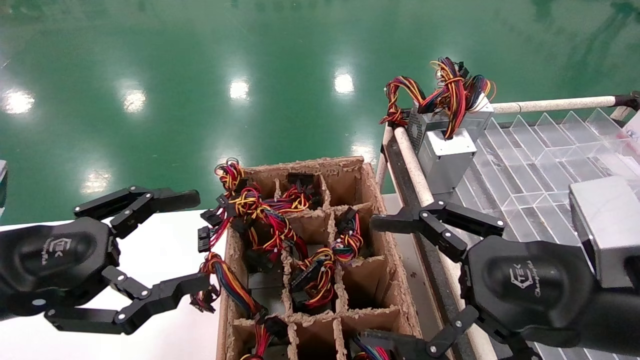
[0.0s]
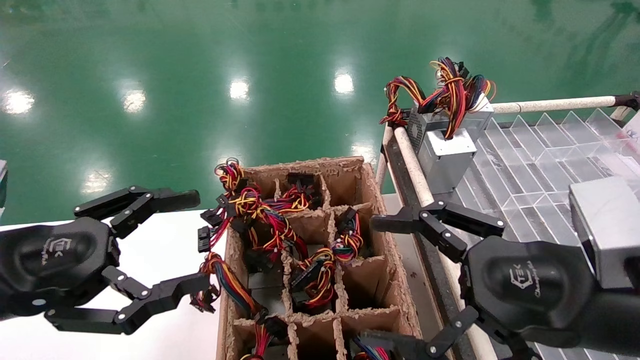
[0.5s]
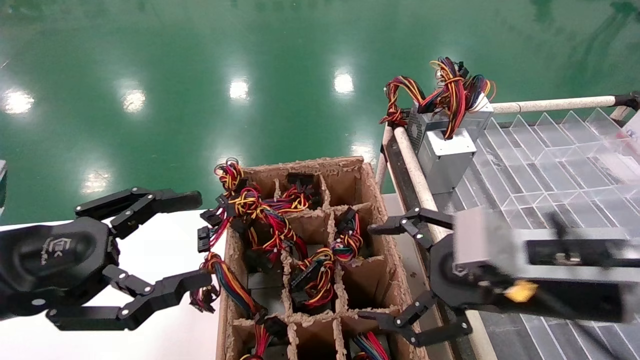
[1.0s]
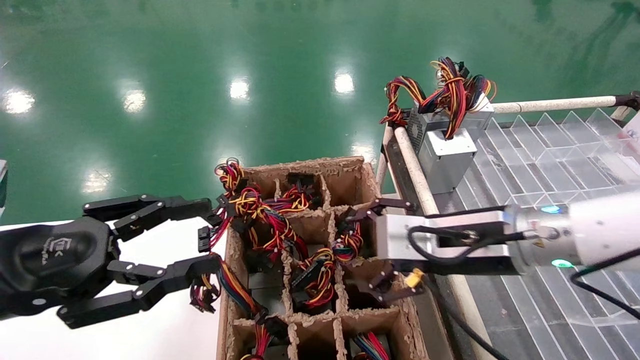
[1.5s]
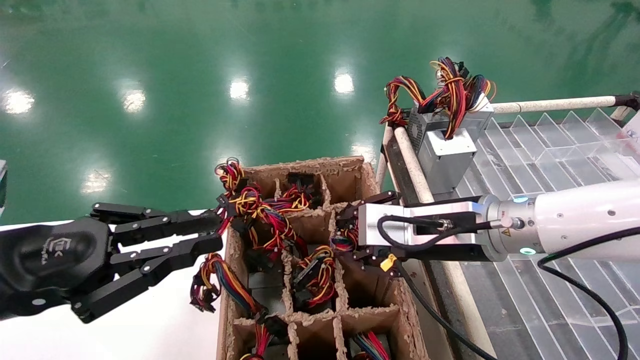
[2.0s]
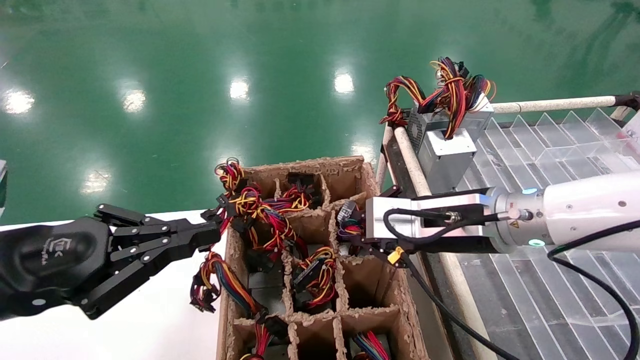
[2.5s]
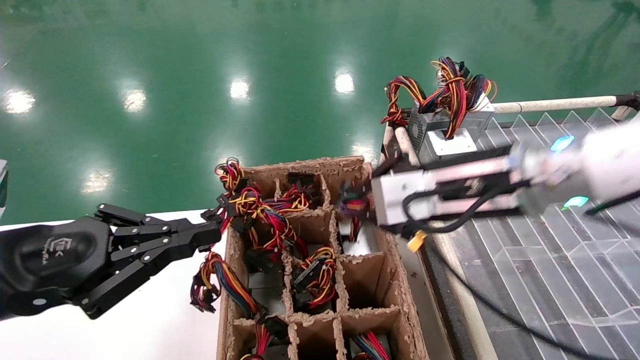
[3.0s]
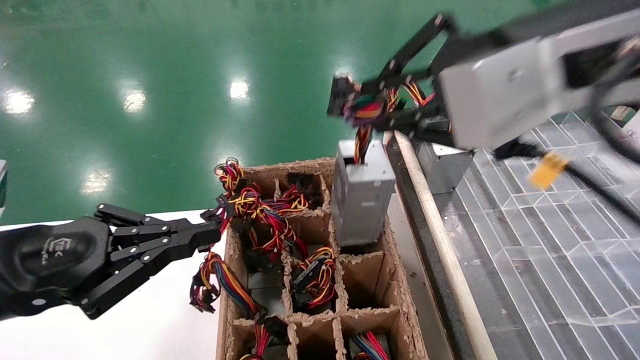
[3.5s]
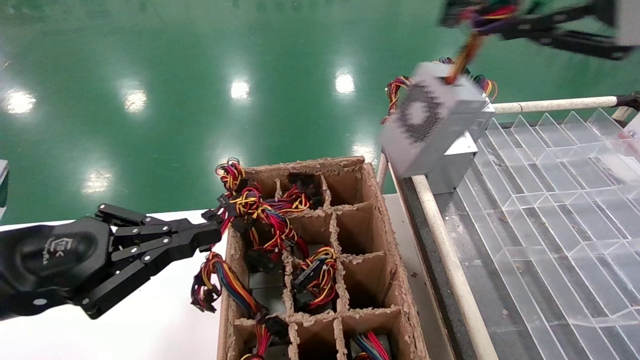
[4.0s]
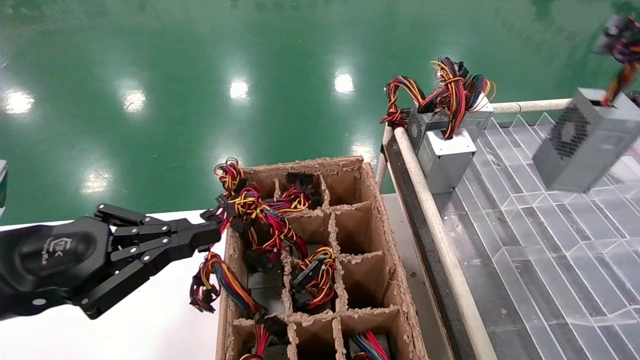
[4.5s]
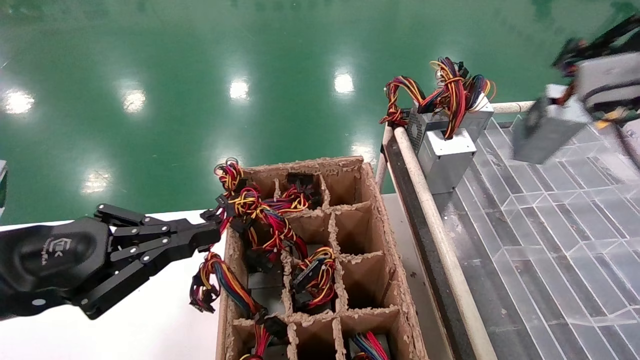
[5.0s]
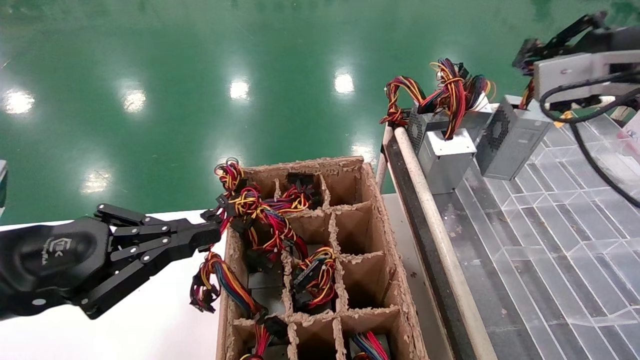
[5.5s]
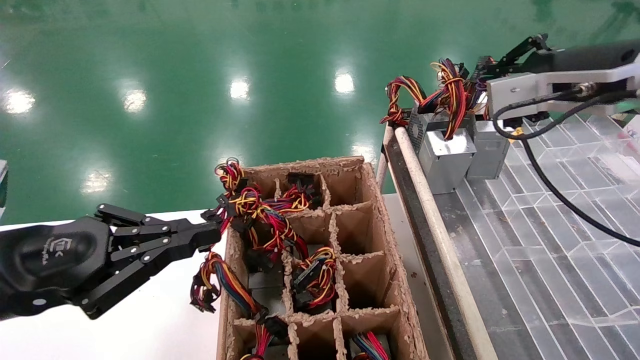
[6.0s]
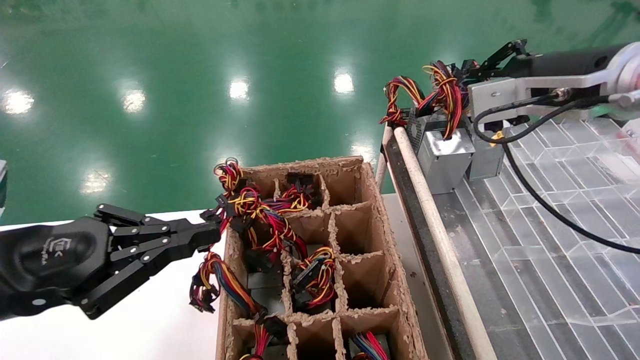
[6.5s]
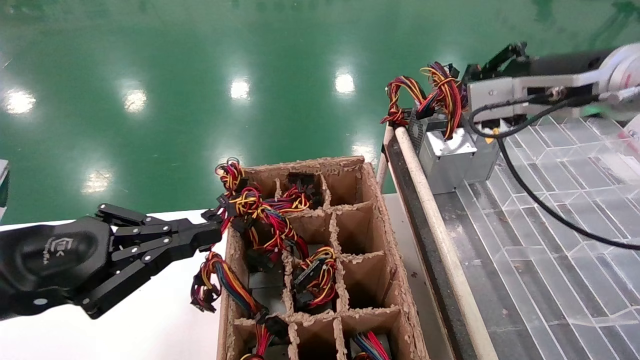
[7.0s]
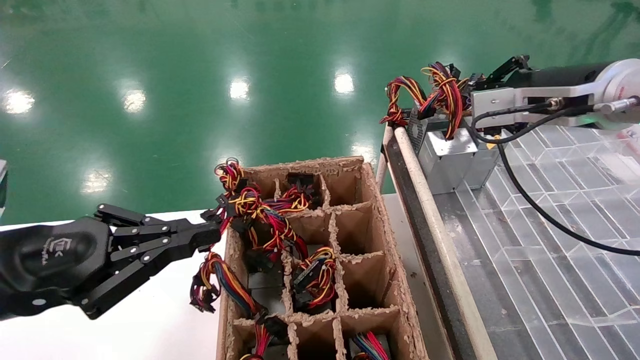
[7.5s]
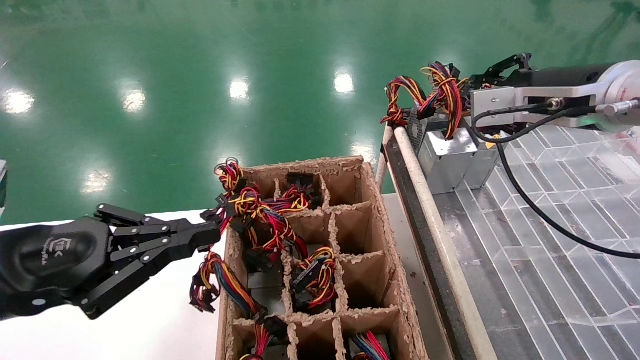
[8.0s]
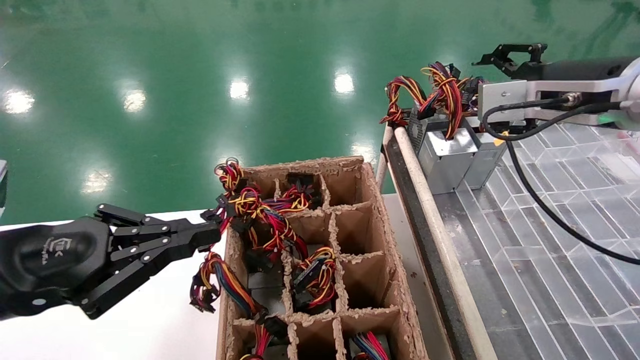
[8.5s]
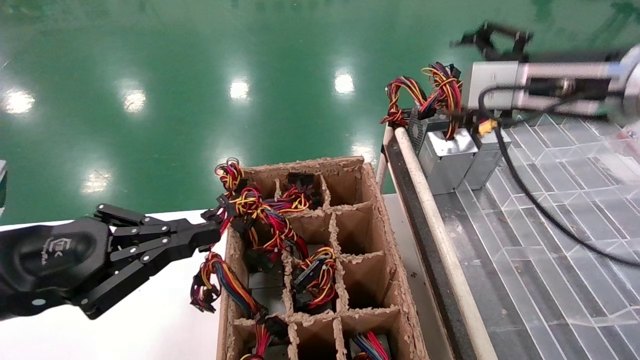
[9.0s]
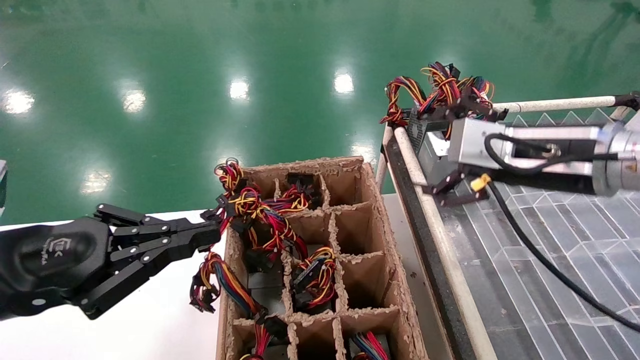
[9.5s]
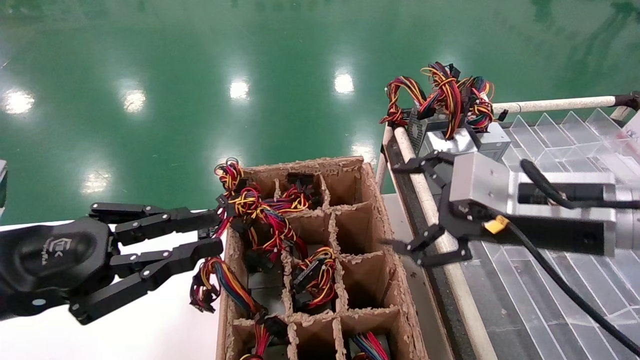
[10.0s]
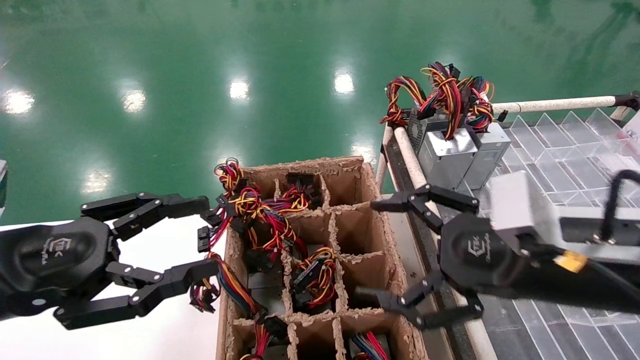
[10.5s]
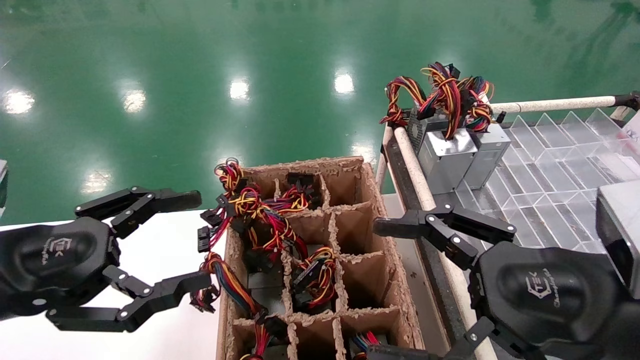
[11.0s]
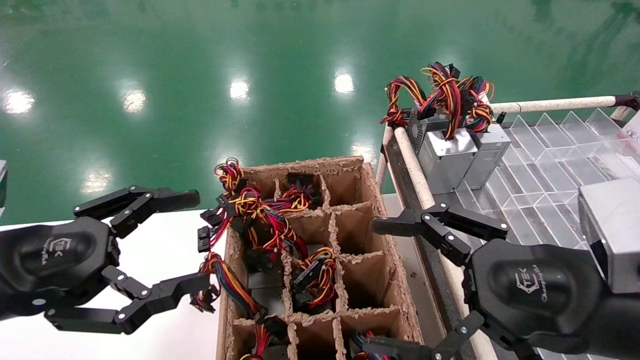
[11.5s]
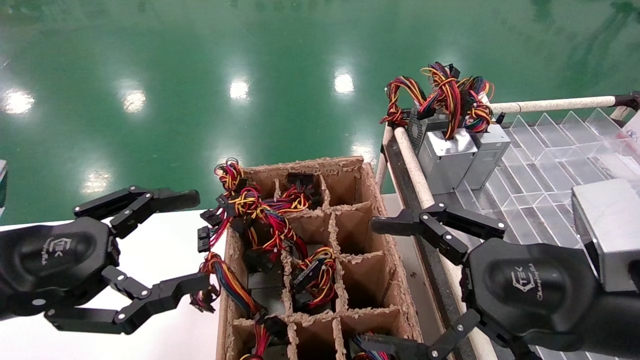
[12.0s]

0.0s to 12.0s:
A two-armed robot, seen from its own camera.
Step, 1.0s to 2.5s: Grab the main unit power supply from the containment box.
Step, 3.0s to 8.0s: Place the main unit power supply in the designated area.
0.0s to 2.0s: The right gripper goes approximately 15 cm forward and to the left, and closes, while the left gripper closes.
2.0s to 4.0s: The right gripper shifts roughly 30 cm upward, backward and to the right, and closes its fingers.
4.0s to 6.0s: The right gripper shifts roughly 20 cm forward and downward.
6.0s to 8.0s: The grippers move only a little.
8.0s to 10.0s: The right gripper travels downward, backward and to the left by roughly 15 cm, and opens its fingers.
10.0s to 12.0s: The right gripper moves backward, roughly 10 cm. Meanwhile the left gripper opens its fingers.

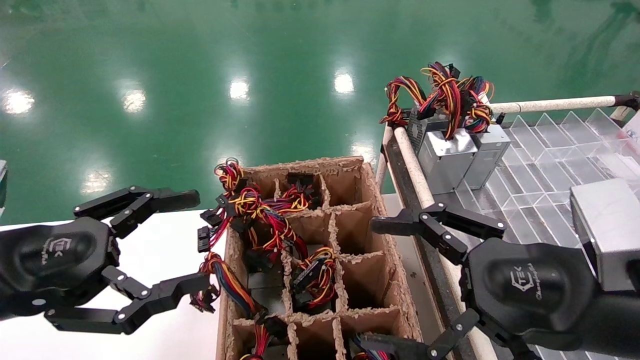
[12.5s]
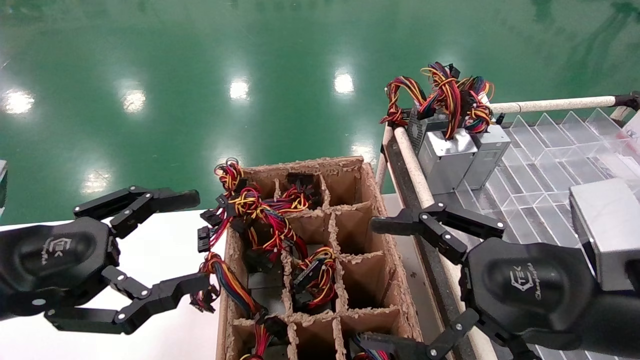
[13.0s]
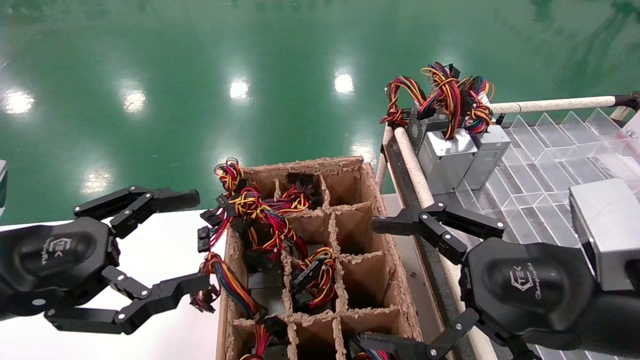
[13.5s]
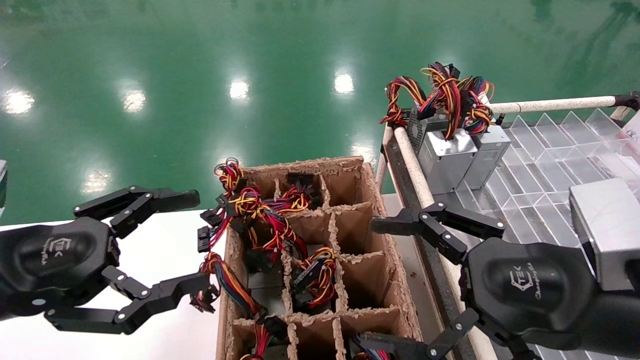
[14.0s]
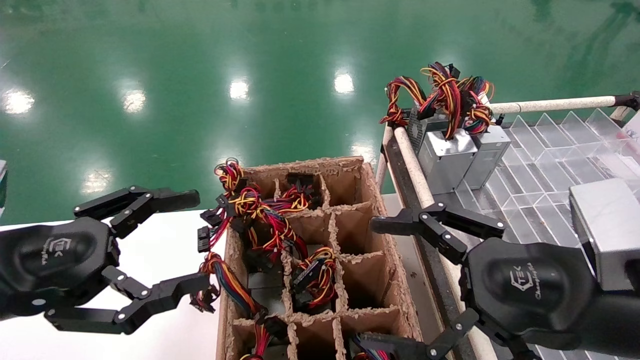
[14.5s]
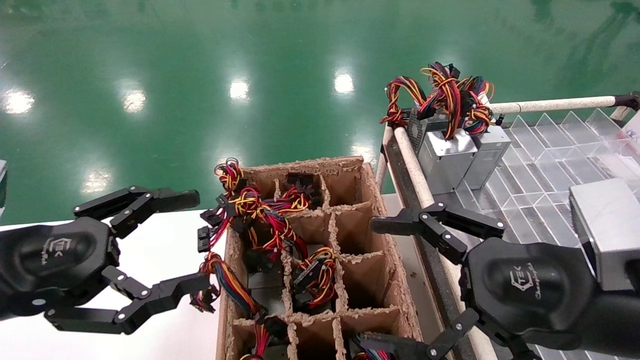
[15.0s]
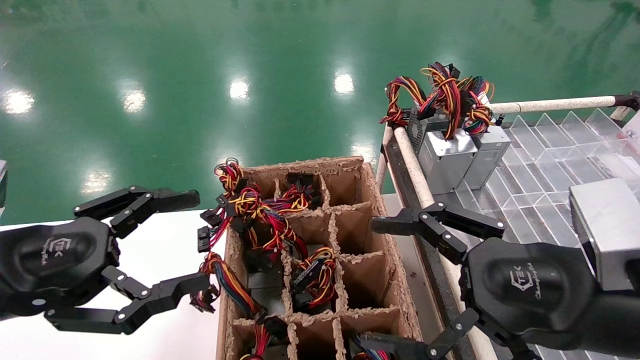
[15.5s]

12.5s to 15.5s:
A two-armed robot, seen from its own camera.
12.5s to 15.5s: Both grippers stay put.

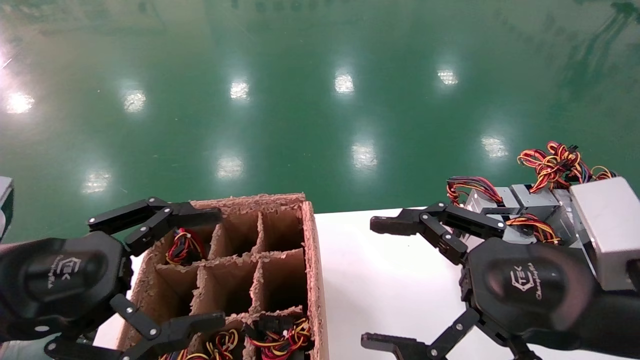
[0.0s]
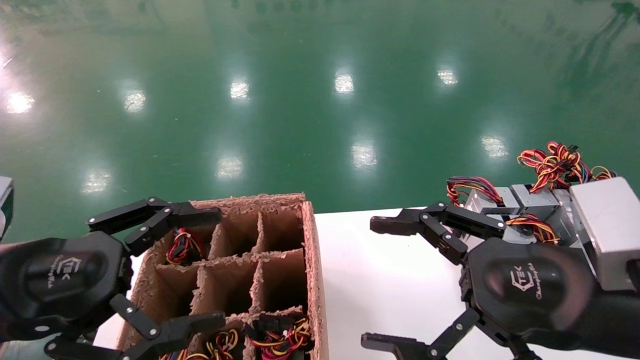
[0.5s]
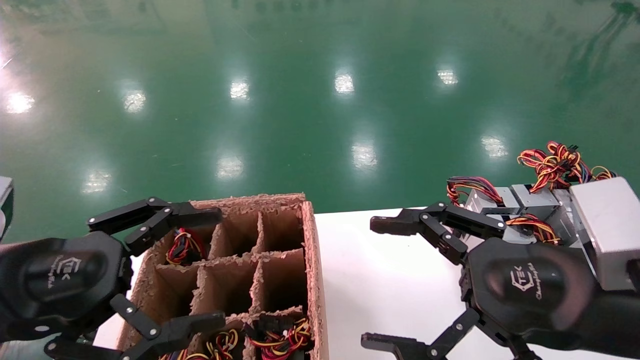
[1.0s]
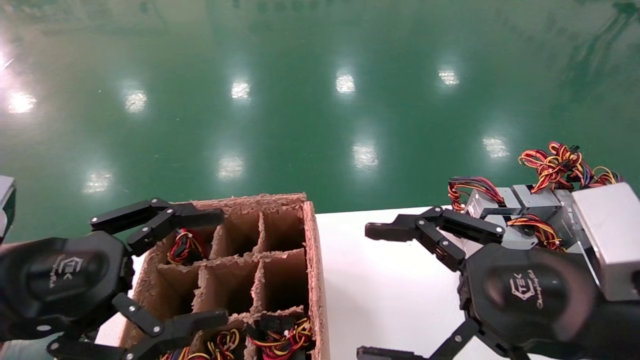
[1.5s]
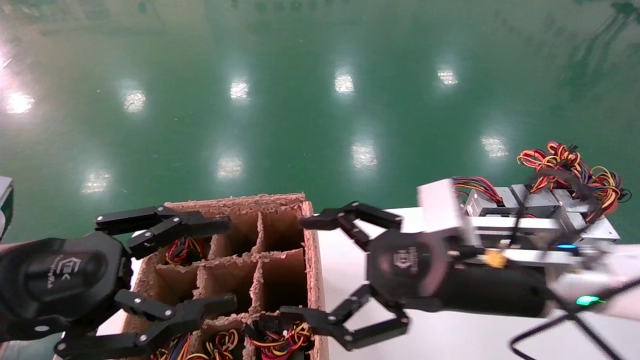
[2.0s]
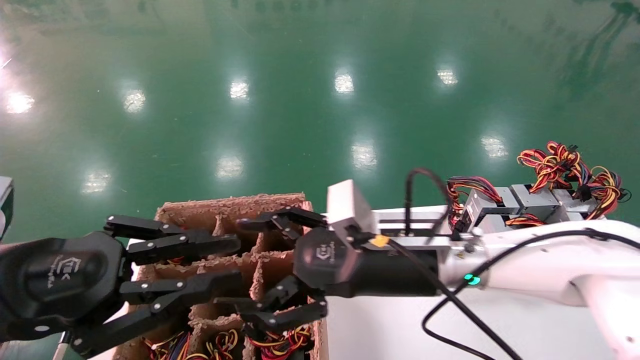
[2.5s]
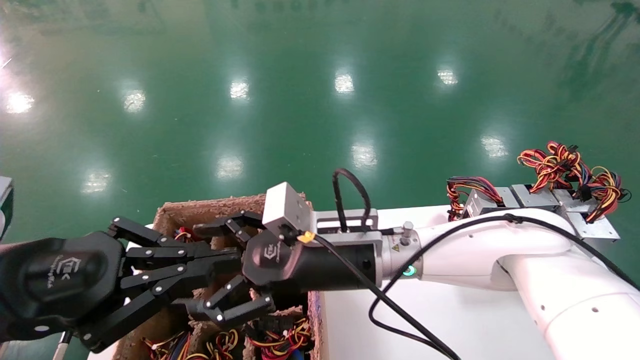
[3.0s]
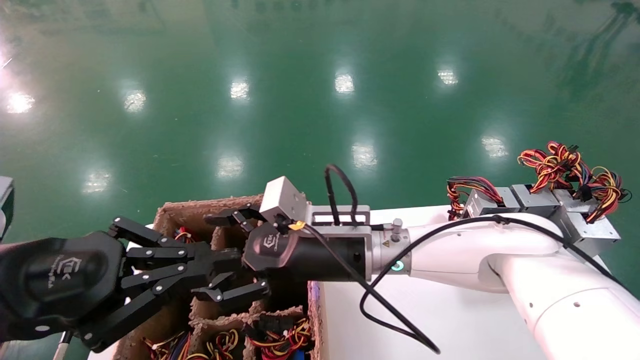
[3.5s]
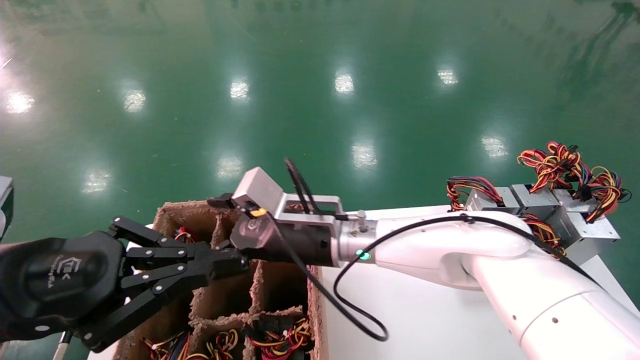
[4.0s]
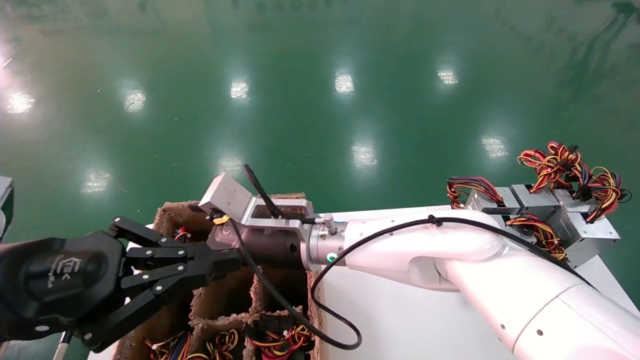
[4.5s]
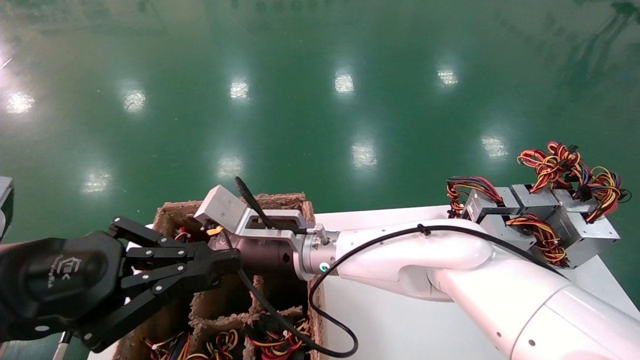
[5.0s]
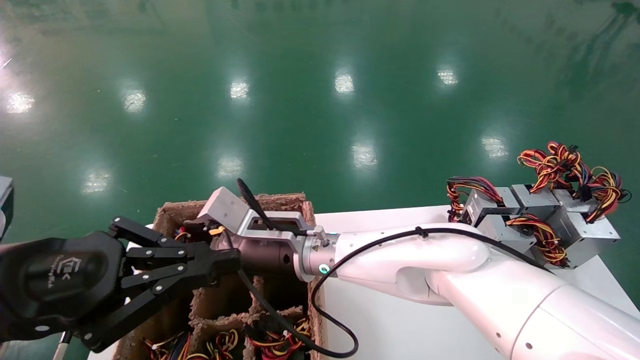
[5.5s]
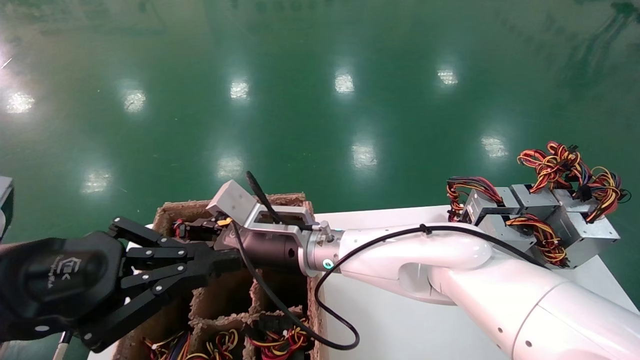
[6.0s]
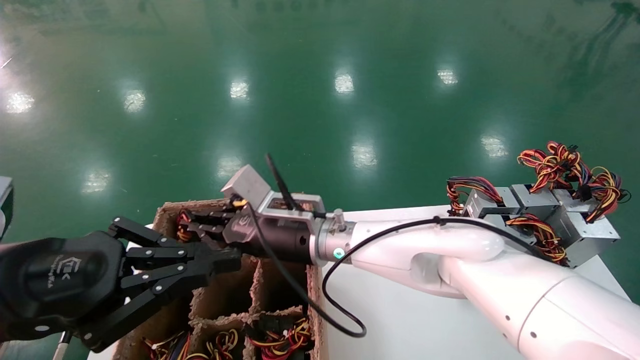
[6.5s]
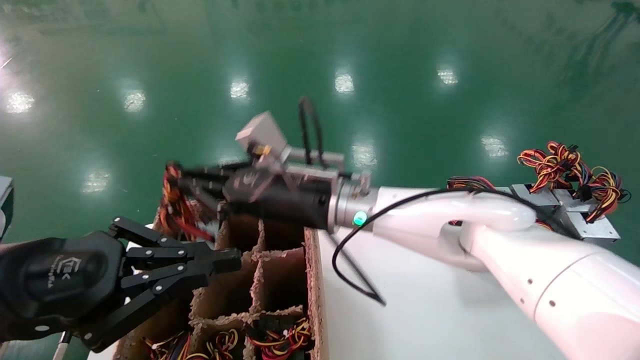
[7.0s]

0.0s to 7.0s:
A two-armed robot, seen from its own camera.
Step, 2.0s to 6.0s: Grab the main unit power supply from the containment box.
0.0s to 2.0s: The right gripper shifts about 10 cm forward and to the left.
2.0s to 3.5s: The left gripper closes, while the right gripper shifts roughly 15 cm to the left and forward.
3.5s to 5.0s: The right gripper moves to the left, roughly 5 cm.
5.0s to 7.0s: The right gripper moves upward, about 10 cm, and closes up.
